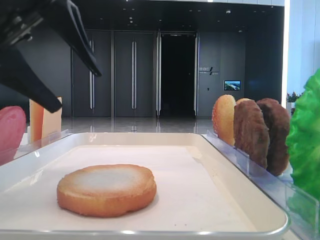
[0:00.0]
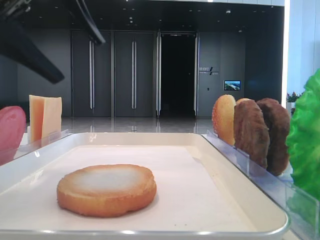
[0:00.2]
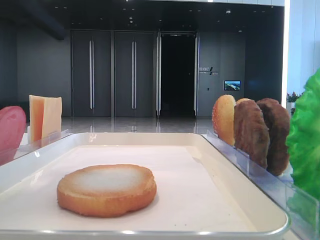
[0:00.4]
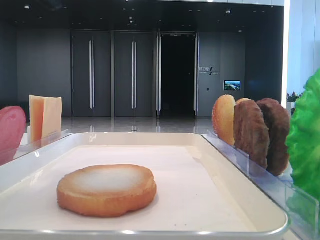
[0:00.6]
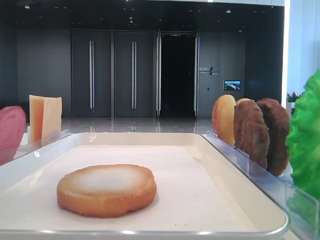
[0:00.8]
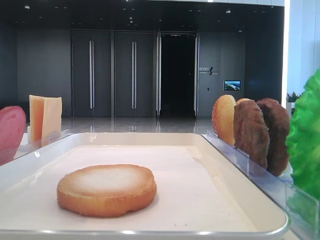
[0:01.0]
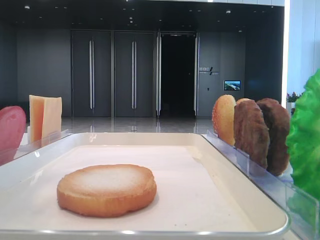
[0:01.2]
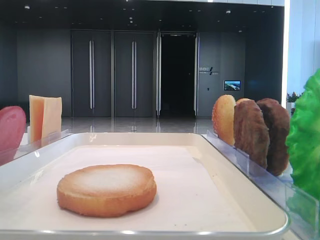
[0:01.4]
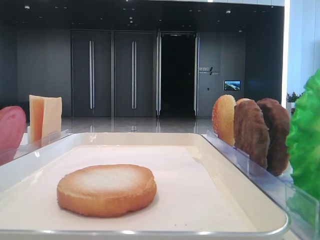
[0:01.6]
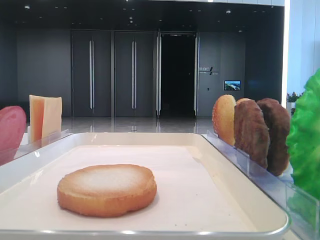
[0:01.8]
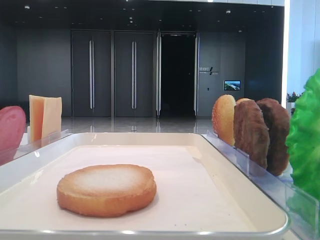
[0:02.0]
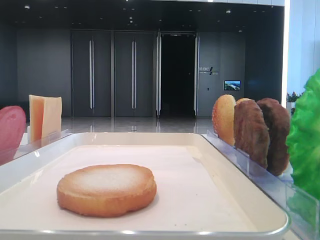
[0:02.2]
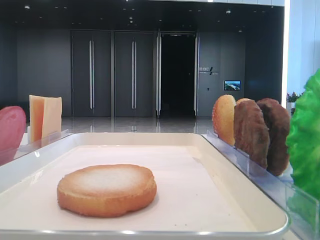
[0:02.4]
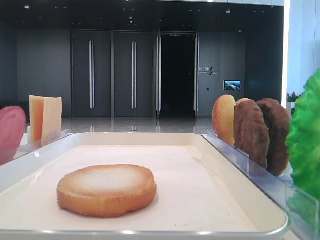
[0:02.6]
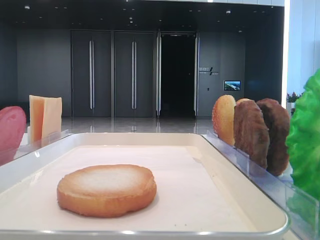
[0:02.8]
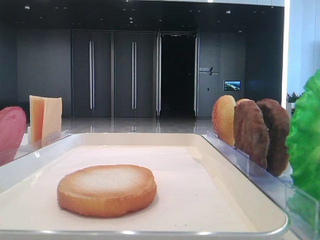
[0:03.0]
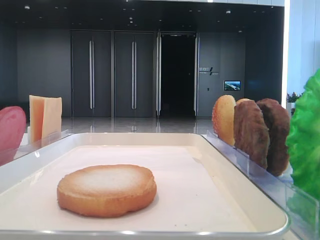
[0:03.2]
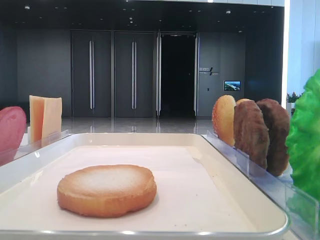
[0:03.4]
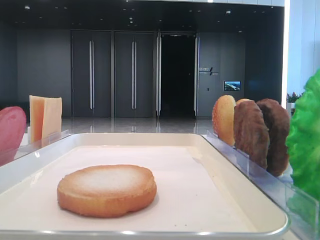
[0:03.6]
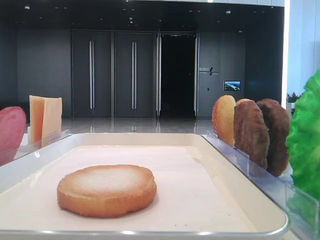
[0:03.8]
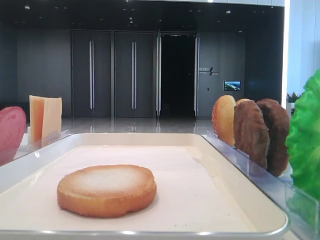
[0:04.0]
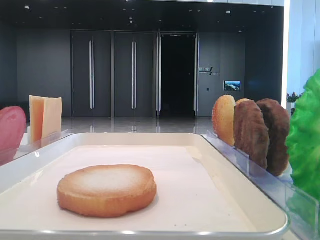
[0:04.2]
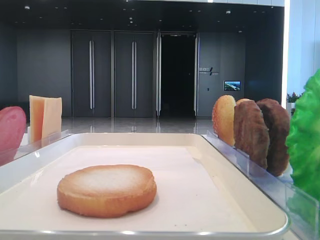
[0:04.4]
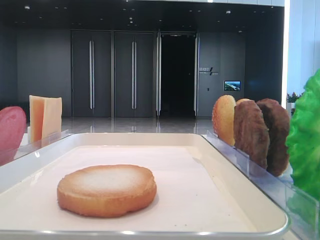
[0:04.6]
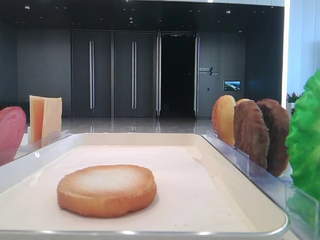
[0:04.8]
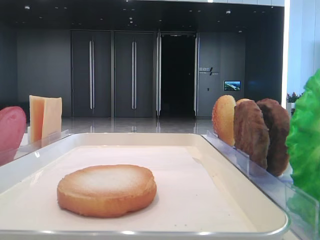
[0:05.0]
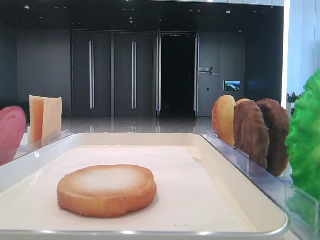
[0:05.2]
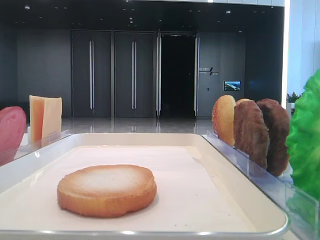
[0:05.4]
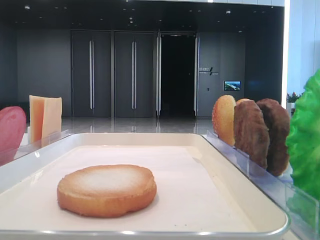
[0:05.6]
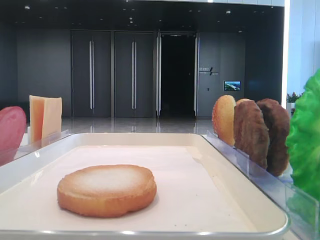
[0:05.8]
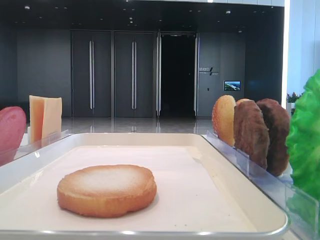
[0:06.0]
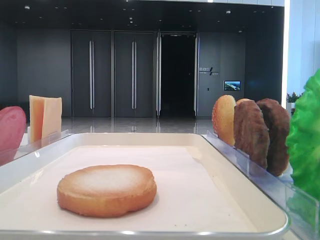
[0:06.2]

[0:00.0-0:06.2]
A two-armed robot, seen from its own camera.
0:00.0 to 0:01.6: The left gripper is displaced to the left and upward by some 15 cm.

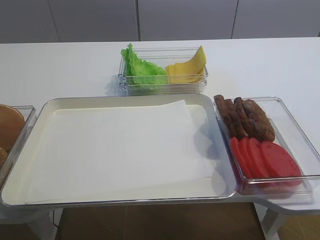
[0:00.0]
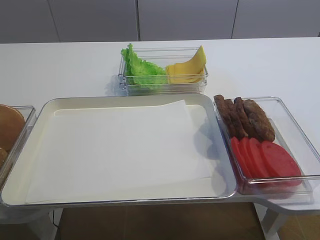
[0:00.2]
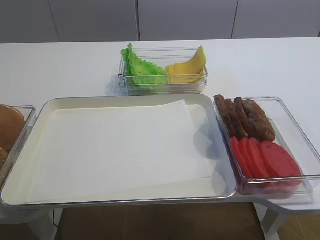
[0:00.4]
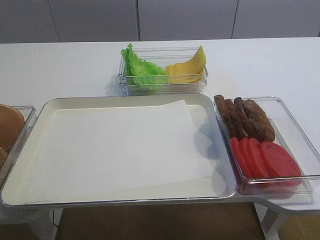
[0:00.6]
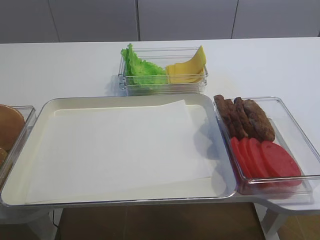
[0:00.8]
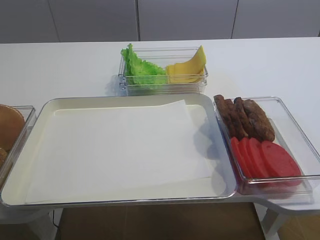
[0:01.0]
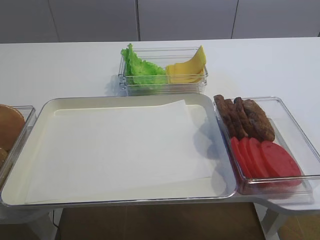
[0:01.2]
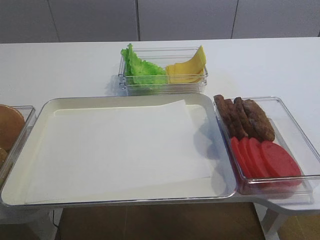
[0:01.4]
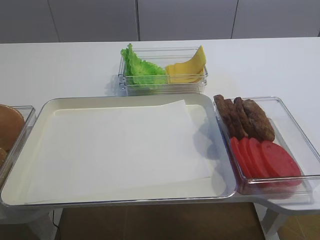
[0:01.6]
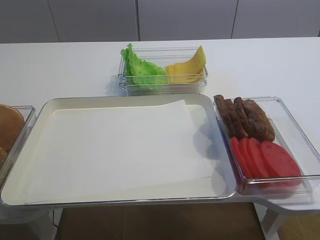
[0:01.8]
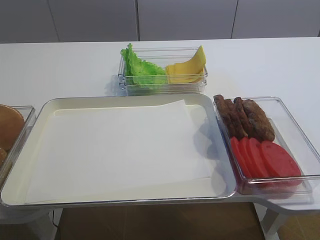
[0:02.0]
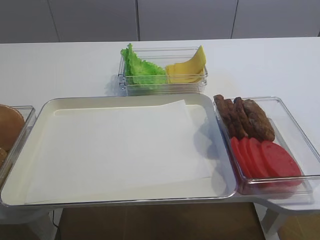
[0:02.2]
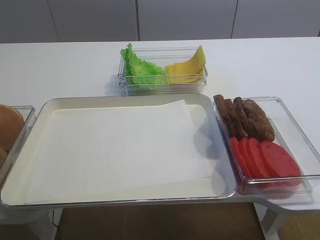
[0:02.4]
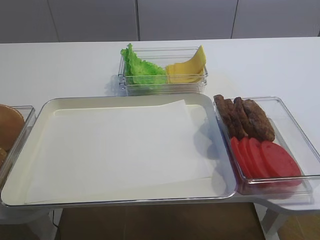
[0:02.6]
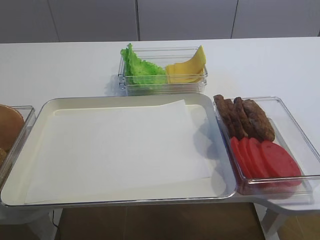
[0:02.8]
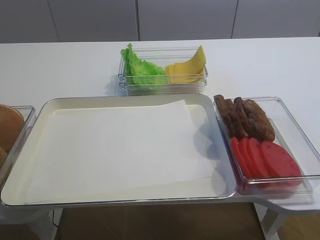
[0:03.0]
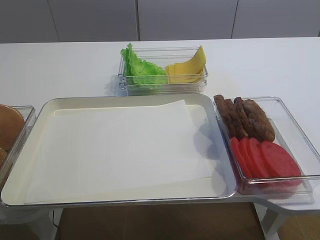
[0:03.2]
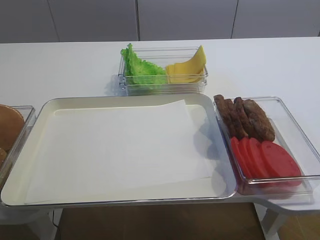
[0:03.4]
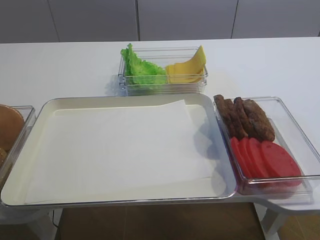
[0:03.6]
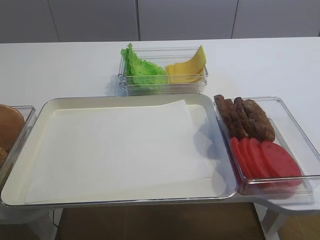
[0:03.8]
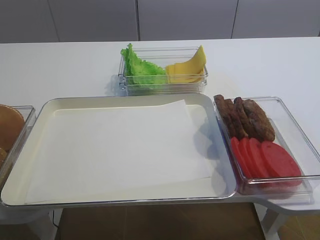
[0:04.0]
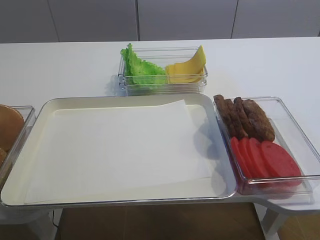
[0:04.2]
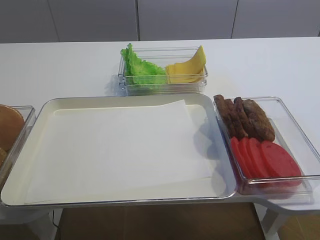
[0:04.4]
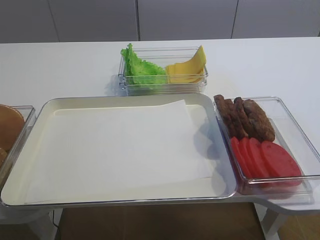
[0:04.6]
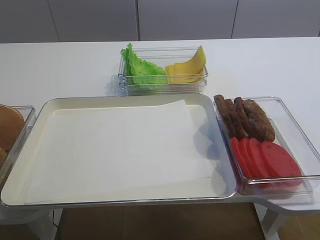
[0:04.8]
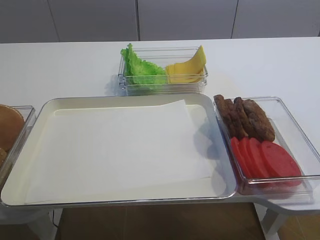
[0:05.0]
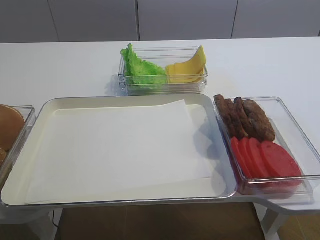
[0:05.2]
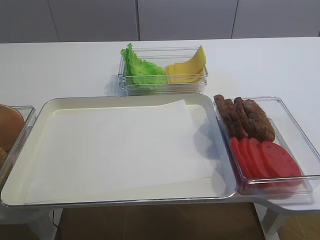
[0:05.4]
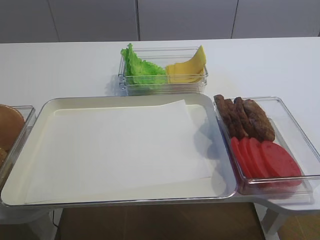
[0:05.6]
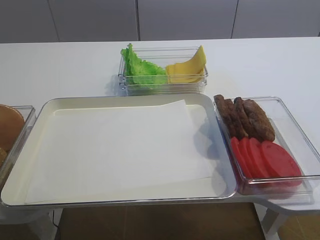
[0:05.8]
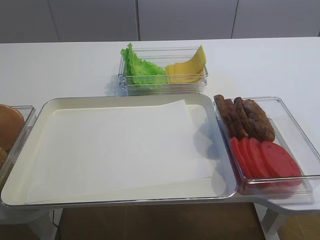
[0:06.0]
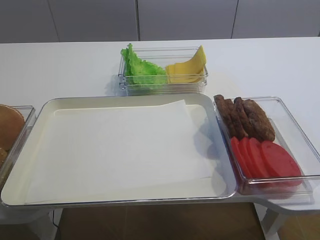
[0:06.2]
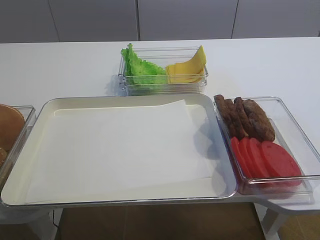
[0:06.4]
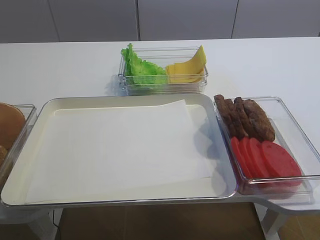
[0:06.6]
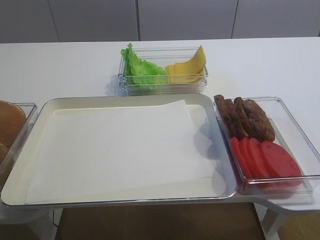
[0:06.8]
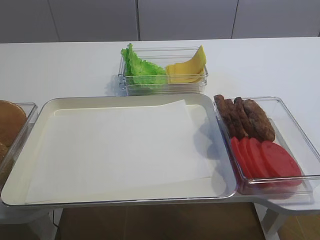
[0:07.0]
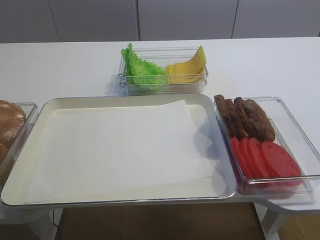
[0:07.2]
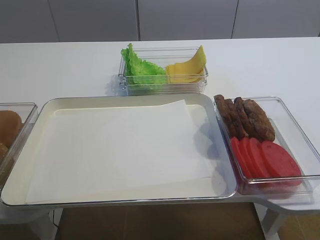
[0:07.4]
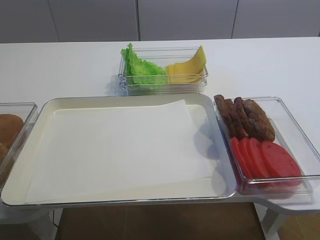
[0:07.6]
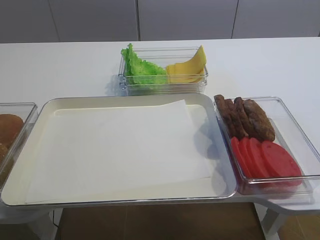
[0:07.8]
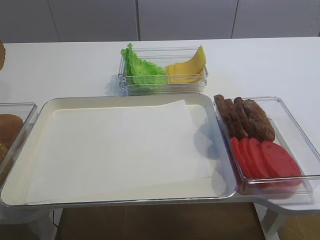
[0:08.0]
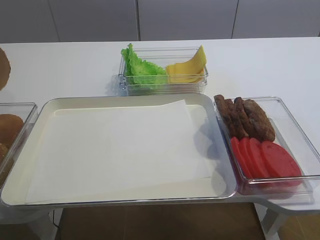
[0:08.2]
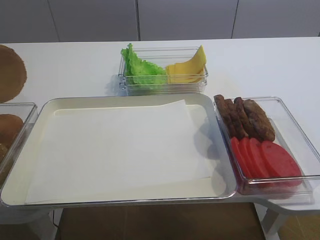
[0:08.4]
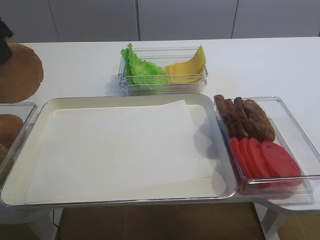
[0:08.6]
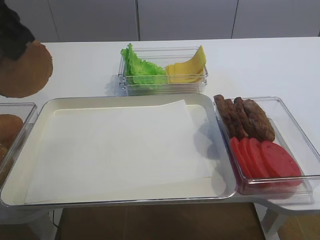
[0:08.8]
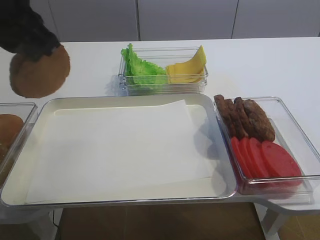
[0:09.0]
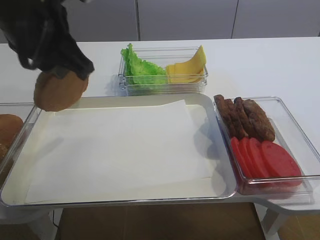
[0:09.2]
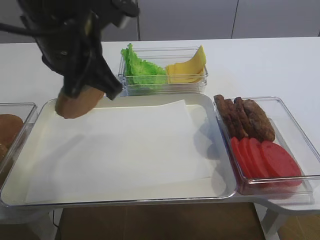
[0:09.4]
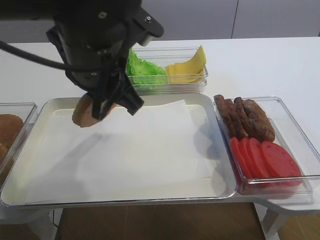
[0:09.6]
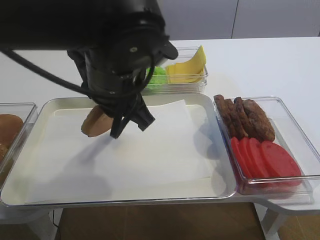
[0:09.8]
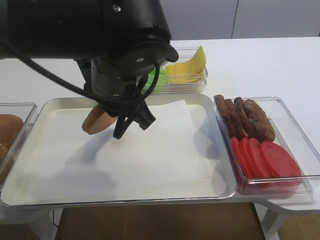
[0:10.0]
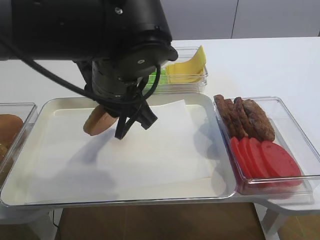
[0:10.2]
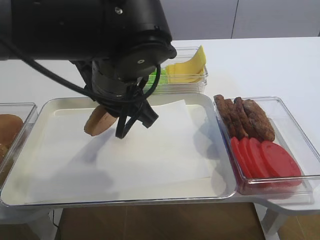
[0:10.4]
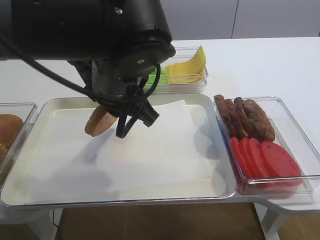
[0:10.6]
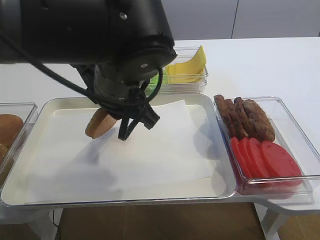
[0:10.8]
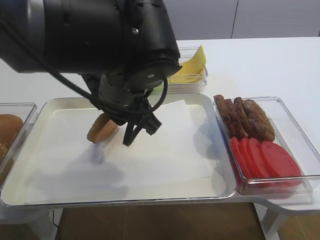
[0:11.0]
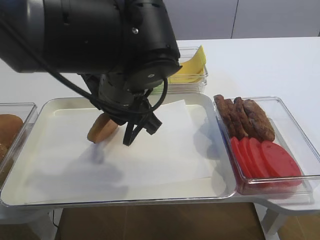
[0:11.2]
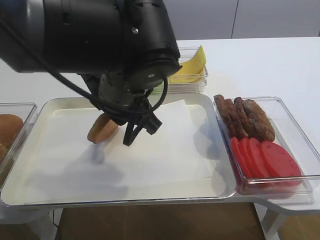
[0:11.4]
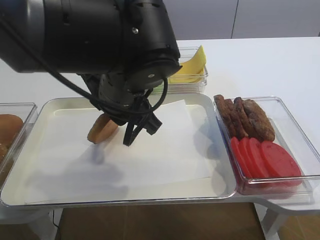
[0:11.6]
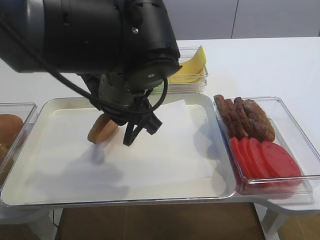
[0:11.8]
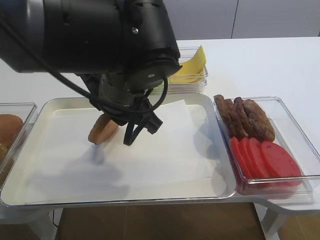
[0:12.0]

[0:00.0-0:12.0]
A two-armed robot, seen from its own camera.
0:07.6 to 0:09.0: The left gripper shifts about 20 cm to the right.
0:09.0 to 0:10.4: The left gripper heads to the right and downward, covering roughly 15 cm.
0:10.4 to 0:12.0: The grippers move only a little.

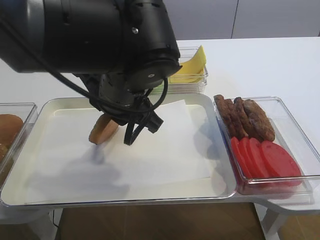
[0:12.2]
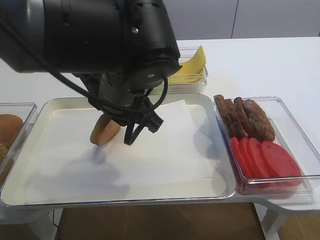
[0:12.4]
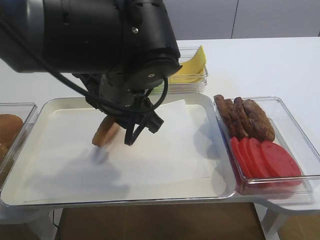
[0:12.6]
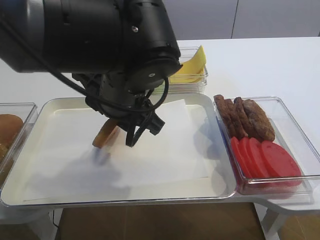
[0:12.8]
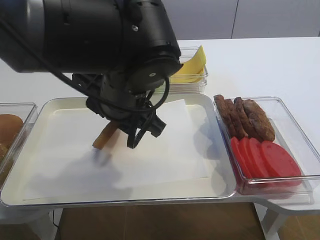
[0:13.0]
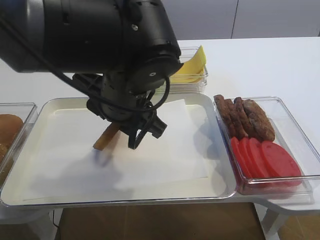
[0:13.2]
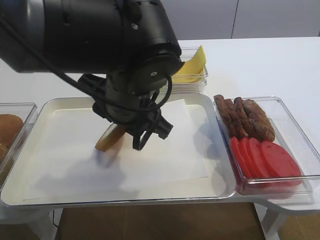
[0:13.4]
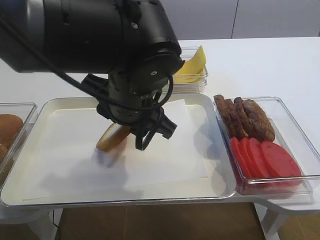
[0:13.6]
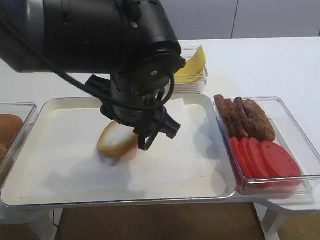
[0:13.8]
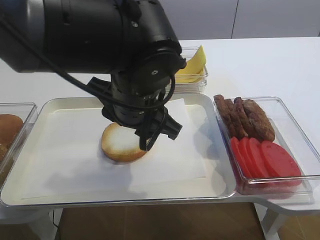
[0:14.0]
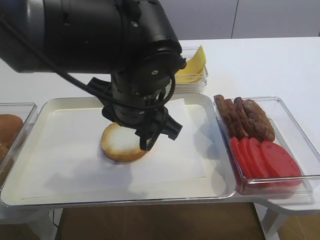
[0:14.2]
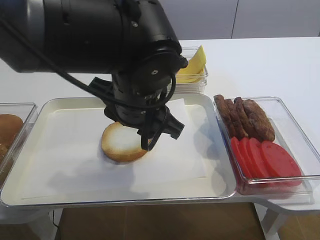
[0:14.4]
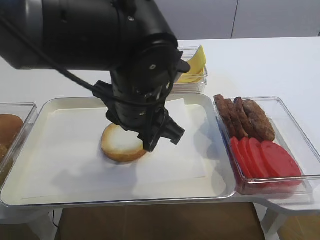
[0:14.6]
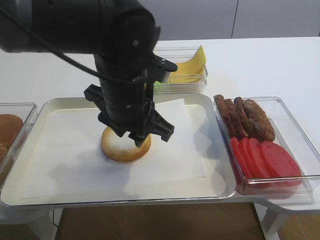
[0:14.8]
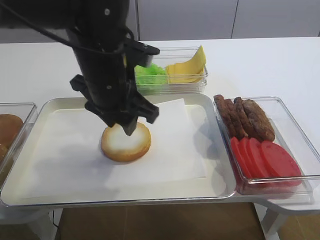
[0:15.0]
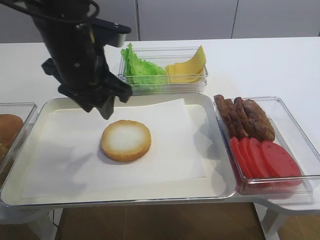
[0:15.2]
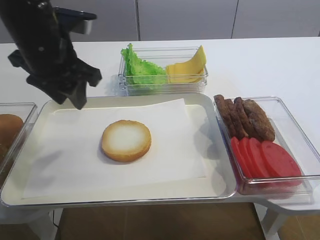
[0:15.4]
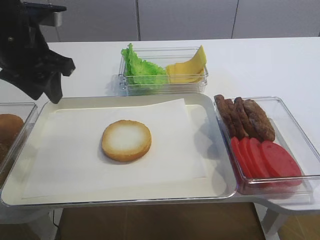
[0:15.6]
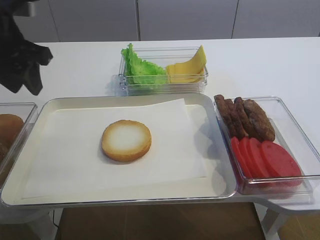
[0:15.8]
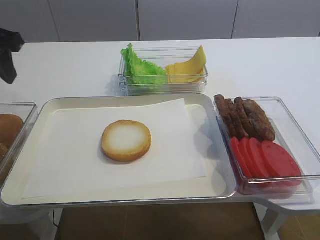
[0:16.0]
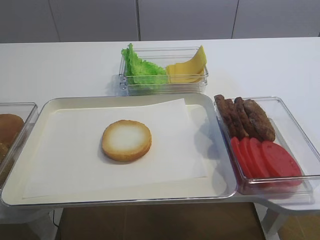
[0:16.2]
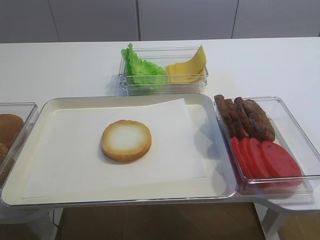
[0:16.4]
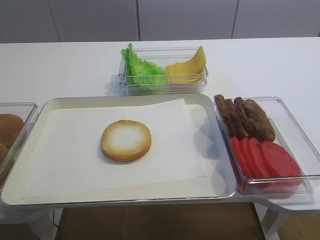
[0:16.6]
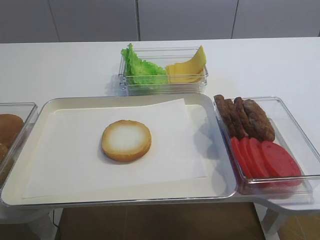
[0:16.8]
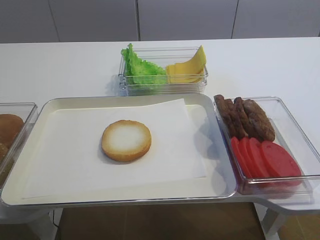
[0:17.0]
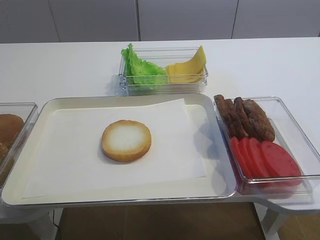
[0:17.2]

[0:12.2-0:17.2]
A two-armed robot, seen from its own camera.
Step, 0:12.2 to 0:14.6: Place the bread slice on the tray with the left gripper.
0:12.2 to 0:13.8: The left gripper opens its fingers.
0:13.8 to 0:15.6: The left gripper goes approximately 15 cm to the left.
0:15.6 to 0:17.2: The left gripper moves backward and to the left, roughly 25 cm.
